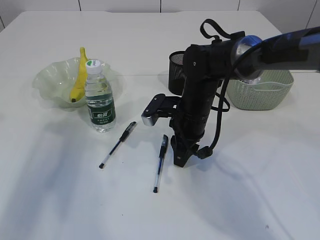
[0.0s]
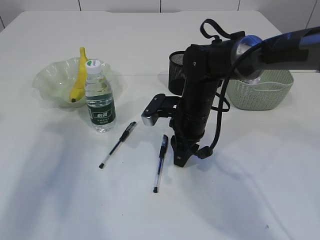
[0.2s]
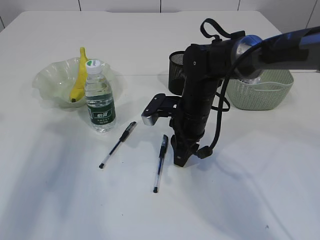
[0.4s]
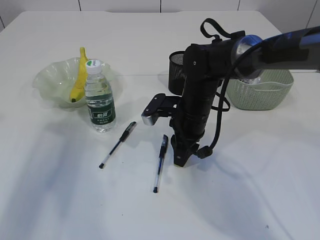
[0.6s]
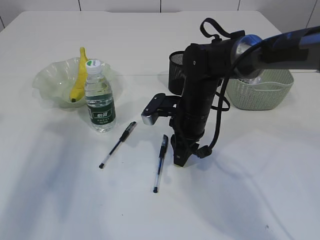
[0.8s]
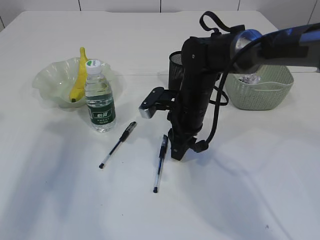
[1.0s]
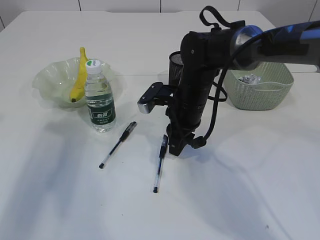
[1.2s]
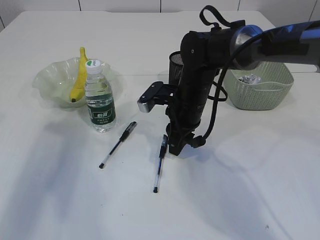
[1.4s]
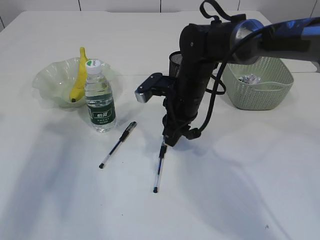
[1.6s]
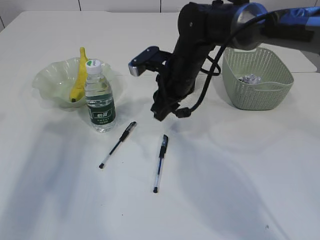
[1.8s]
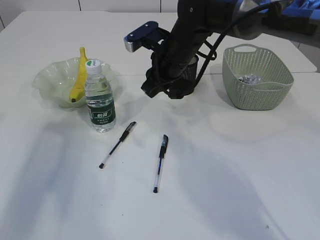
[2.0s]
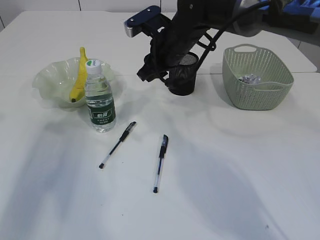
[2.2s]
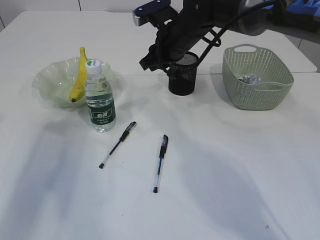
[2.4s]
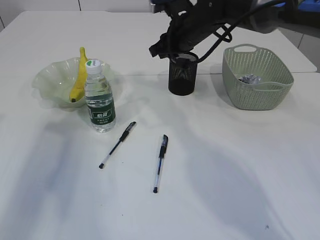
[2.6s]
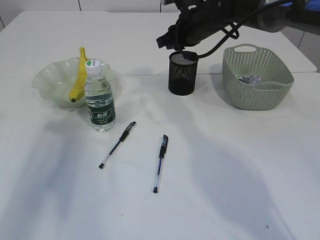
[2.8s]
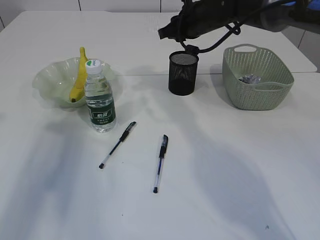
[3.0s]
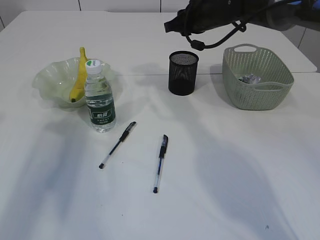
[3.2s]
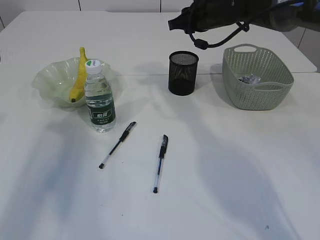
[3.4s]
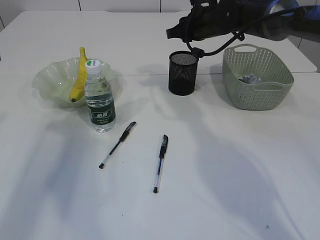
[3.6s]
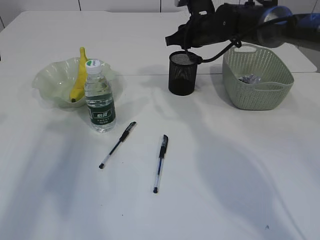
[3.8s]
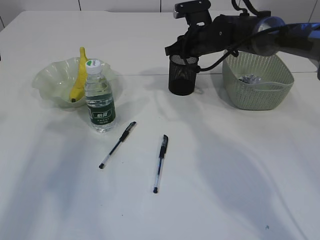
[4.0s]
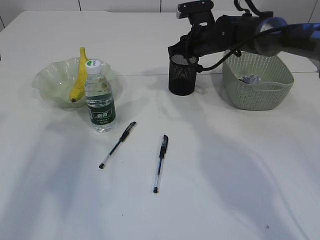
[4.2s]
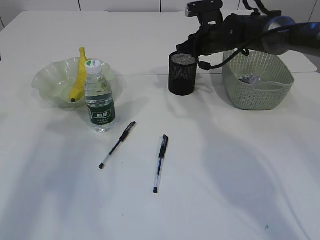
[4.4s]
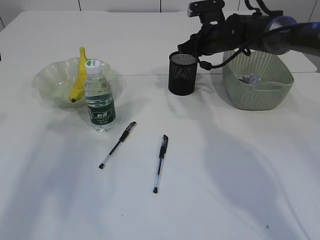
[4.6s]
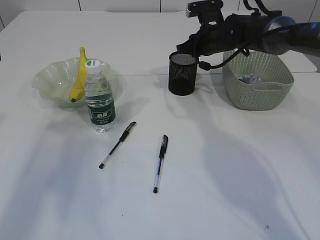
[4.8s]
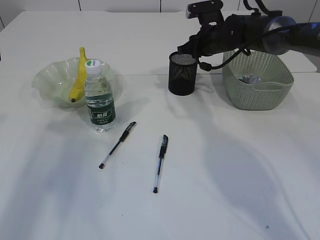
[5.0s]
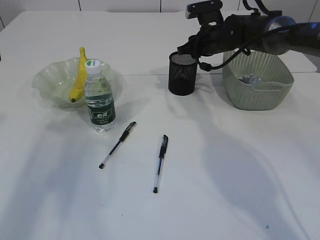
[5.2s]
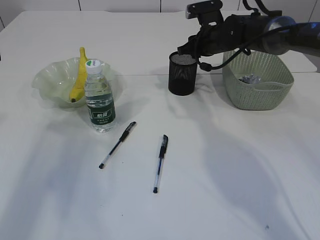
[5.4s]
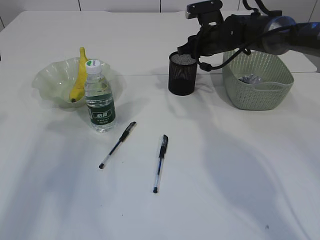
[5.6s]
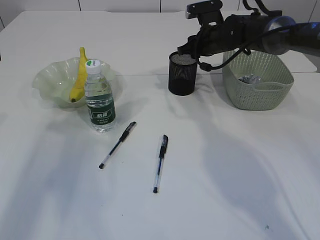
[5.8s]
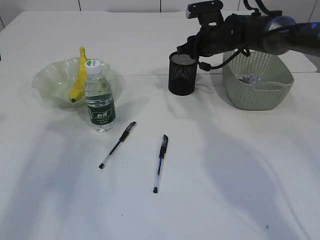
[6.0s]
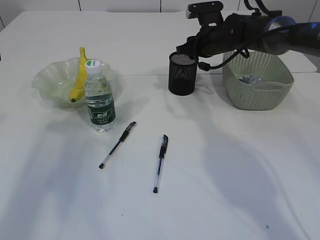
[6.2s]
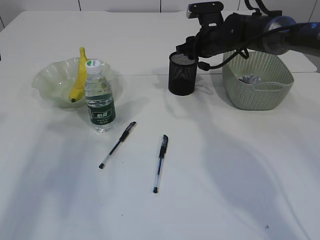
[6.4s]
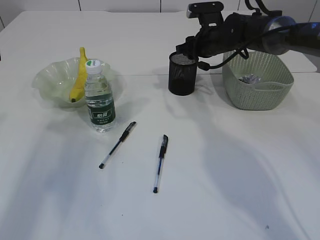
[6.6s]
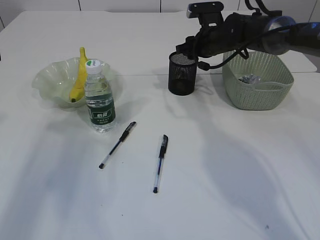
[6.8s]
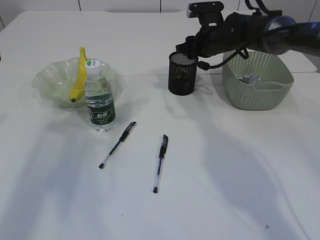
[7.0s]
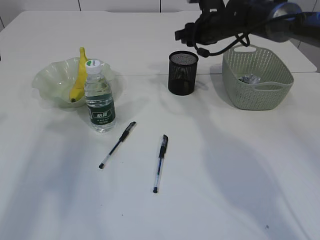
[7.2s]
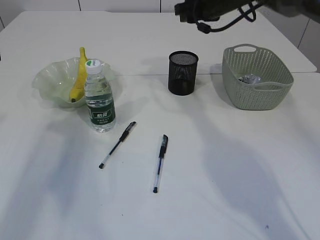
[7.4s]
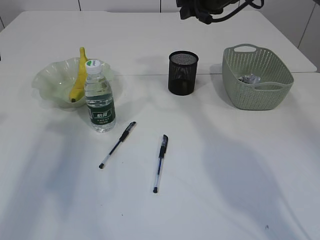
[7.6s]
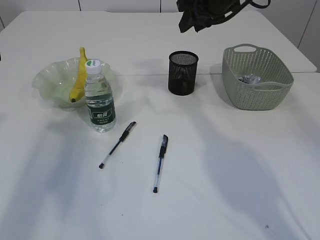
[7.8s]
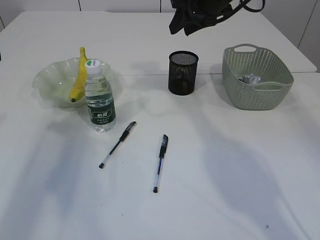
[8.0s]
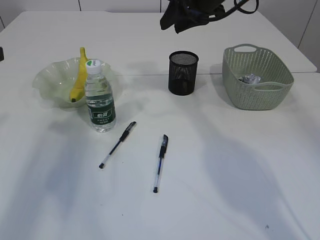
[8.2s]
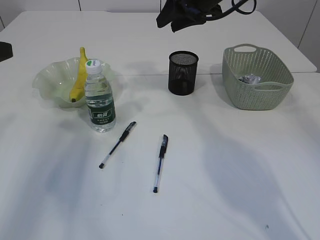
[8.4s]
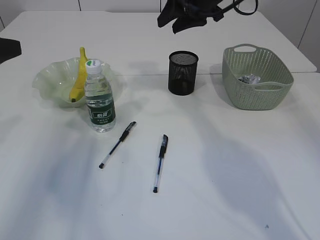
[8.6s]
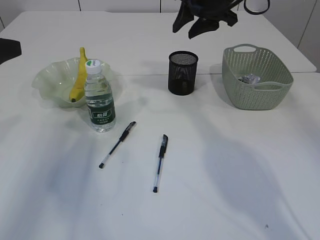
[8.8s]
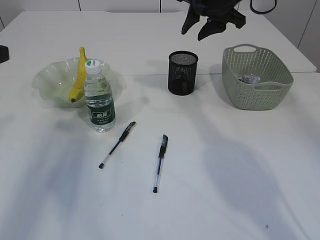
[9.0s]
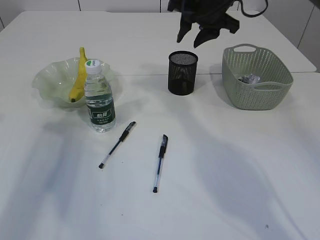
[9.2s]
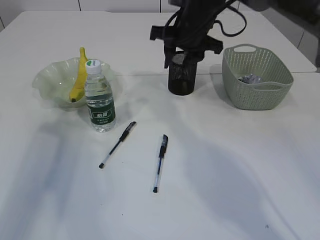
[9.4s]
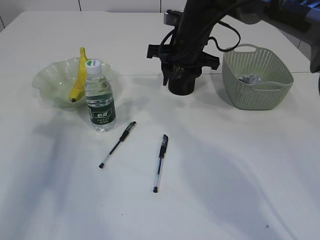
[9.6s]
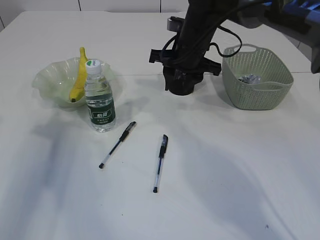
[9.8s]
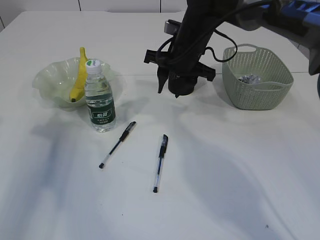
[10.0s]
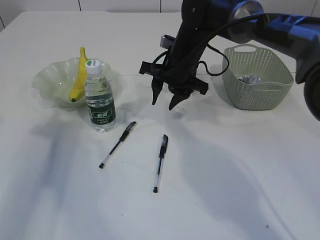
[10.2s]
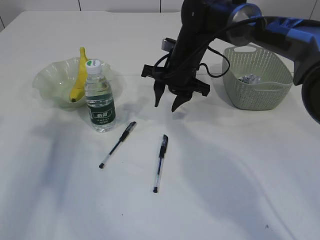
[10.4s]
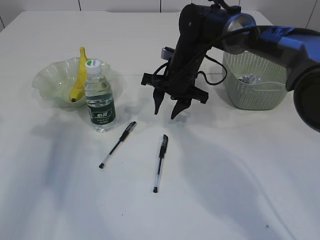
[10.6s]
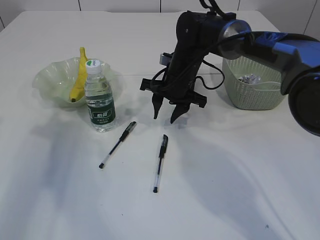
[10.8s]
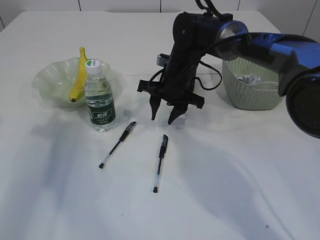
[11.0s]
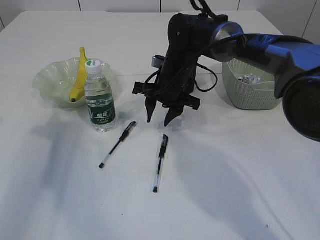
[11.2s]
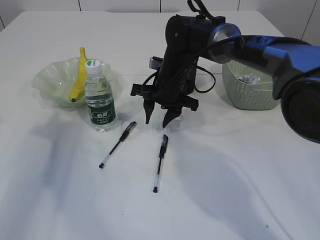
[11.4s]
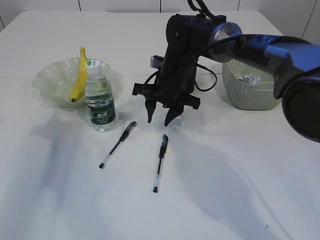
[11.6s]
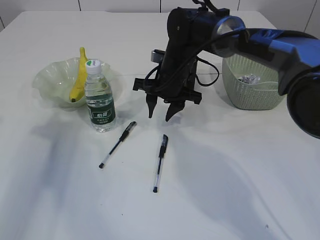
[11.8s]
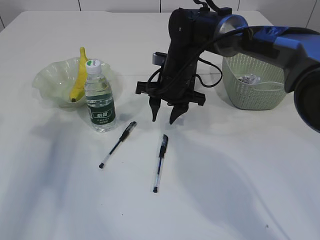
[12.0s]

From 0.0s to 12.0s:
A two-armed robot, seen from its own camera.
Step, from 2.0s to 7.0s: Place the eraser into the pen holder.
From 0.0s to 1.6s: The grippers move only a little.
From 1.6s to 3.0s: The right gripper travels forward and upward by roughly 15 cm.
From 3.0s to 4.4s: The right gripper shifts about 5 cm downward.
From 4.4s to 6.0s: Neither gripper changes place.
From 6.0s to 7.6s: The right gripper shifts some 10 cm upward.
From 9.0s to 10.4s: The right gripper is displaced downward and to the left by roughly 15 cm.
From 10.4s to 12.0s: There are only small adjustments of the grippers.

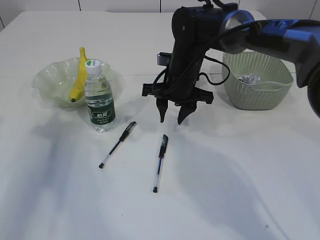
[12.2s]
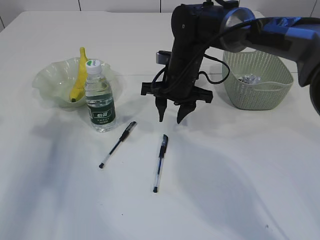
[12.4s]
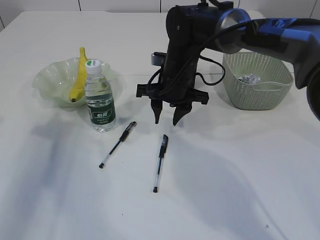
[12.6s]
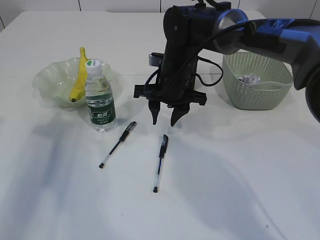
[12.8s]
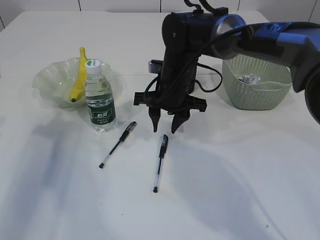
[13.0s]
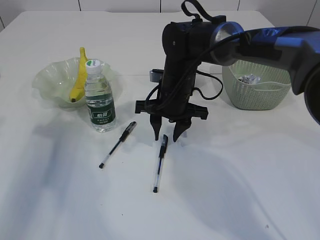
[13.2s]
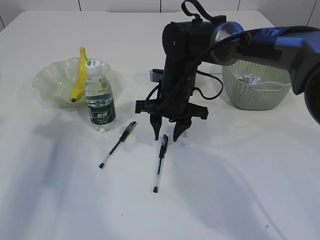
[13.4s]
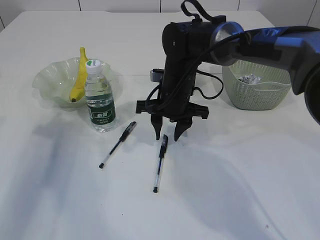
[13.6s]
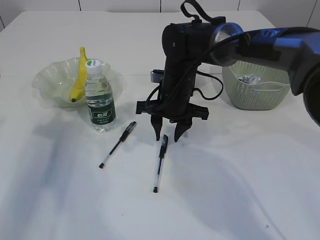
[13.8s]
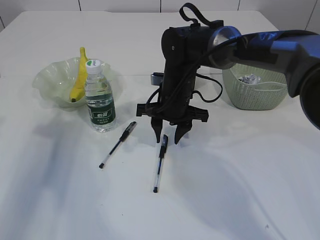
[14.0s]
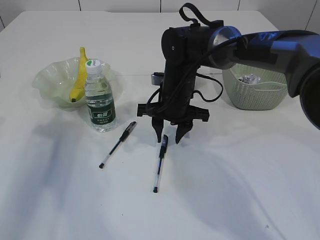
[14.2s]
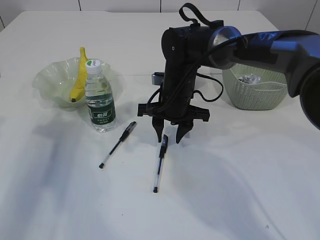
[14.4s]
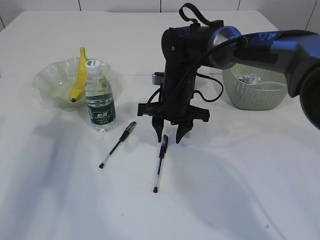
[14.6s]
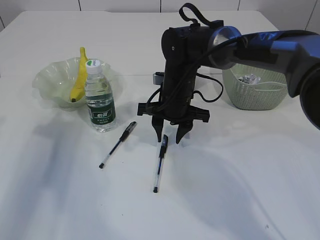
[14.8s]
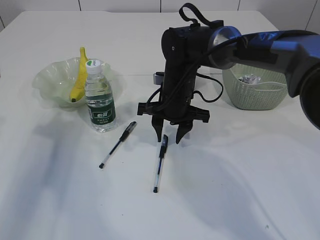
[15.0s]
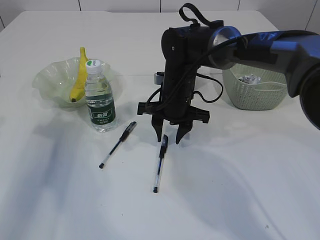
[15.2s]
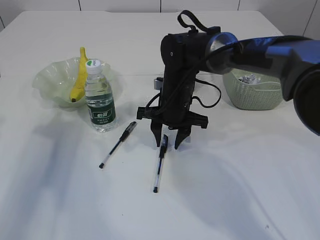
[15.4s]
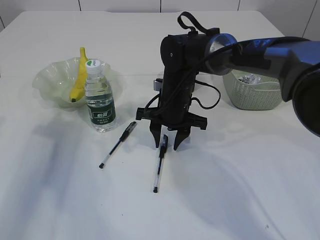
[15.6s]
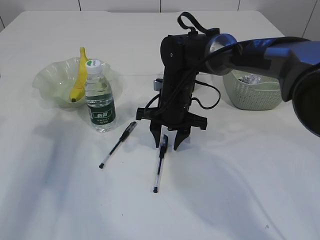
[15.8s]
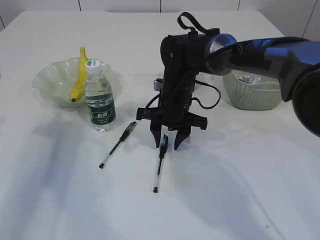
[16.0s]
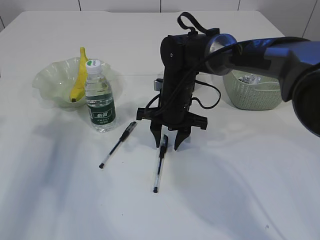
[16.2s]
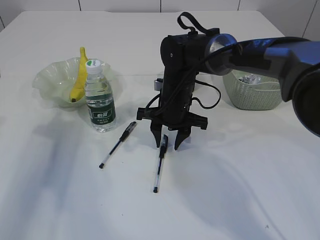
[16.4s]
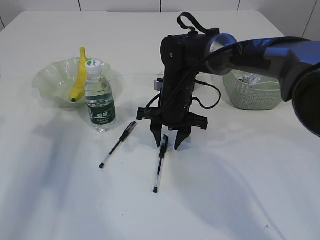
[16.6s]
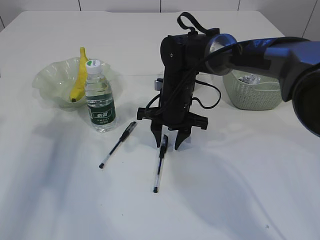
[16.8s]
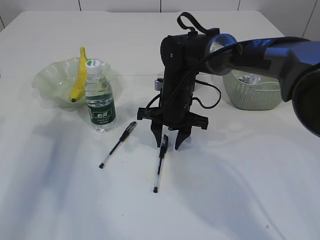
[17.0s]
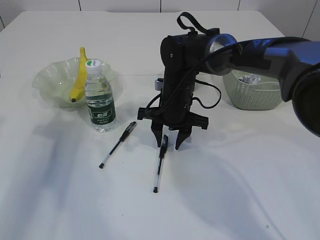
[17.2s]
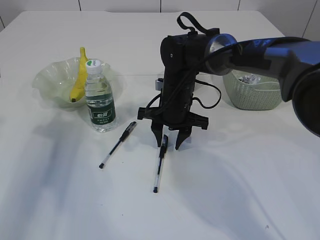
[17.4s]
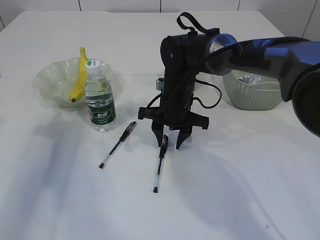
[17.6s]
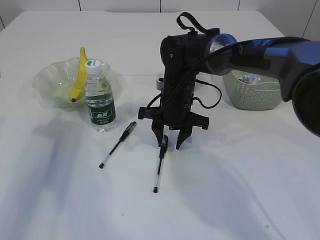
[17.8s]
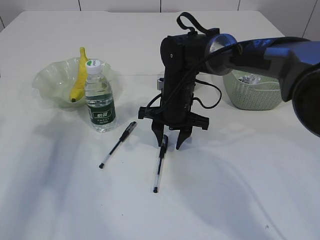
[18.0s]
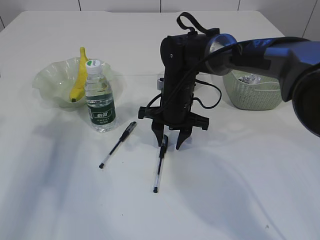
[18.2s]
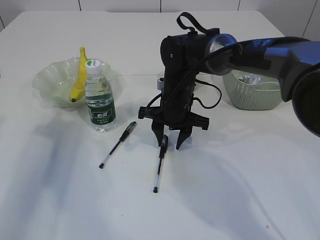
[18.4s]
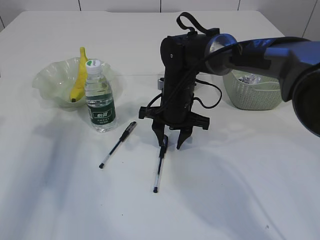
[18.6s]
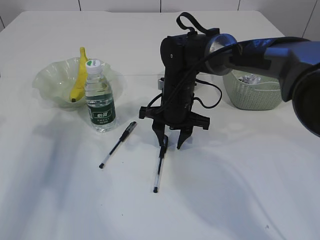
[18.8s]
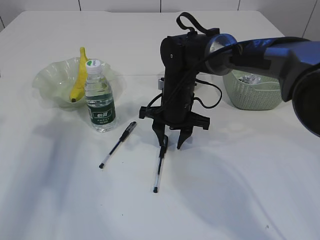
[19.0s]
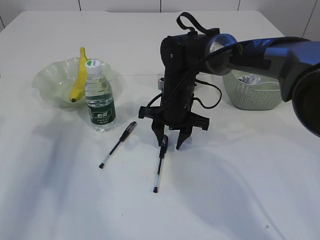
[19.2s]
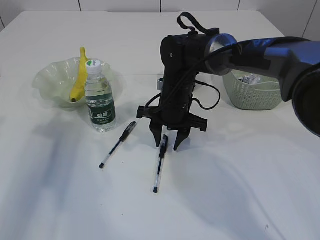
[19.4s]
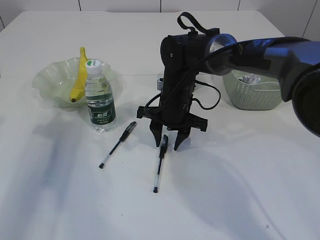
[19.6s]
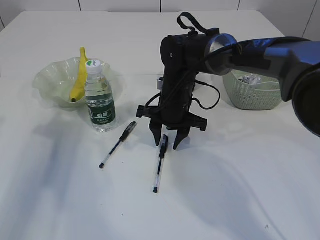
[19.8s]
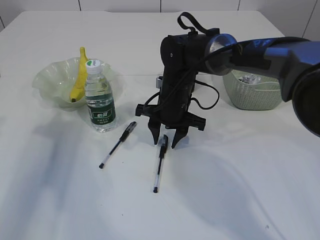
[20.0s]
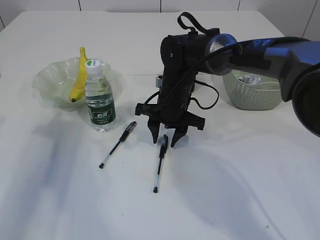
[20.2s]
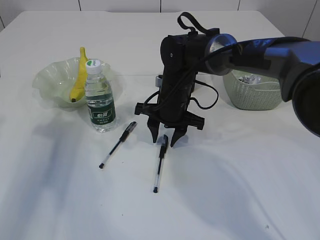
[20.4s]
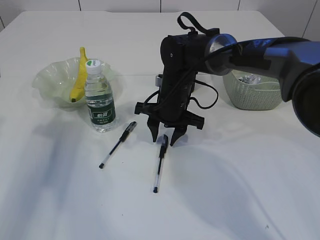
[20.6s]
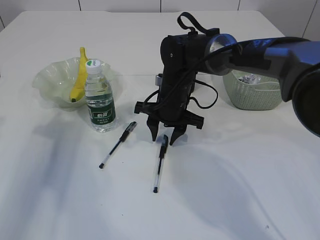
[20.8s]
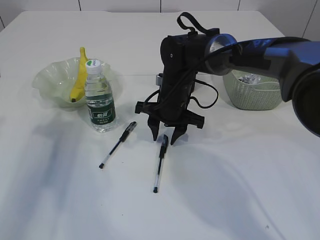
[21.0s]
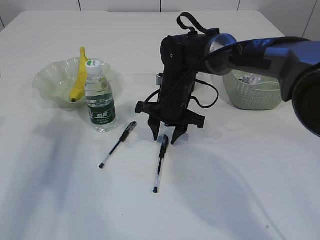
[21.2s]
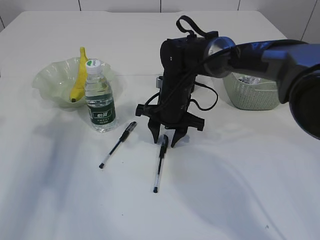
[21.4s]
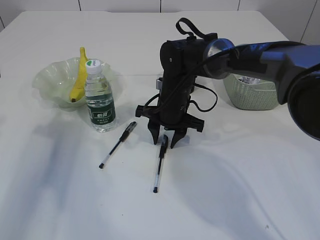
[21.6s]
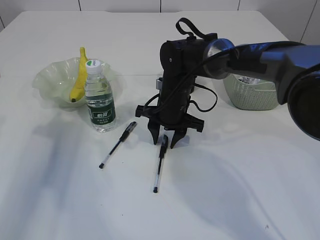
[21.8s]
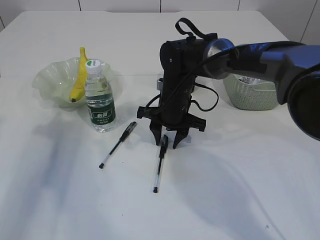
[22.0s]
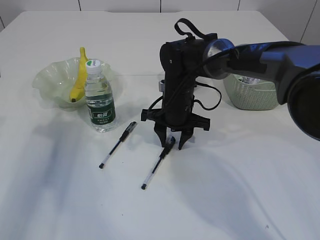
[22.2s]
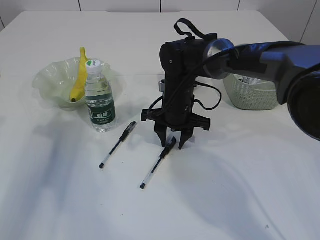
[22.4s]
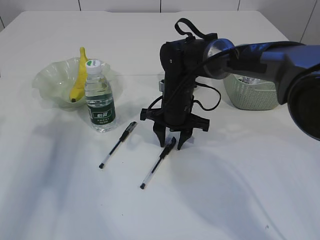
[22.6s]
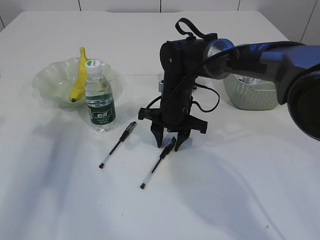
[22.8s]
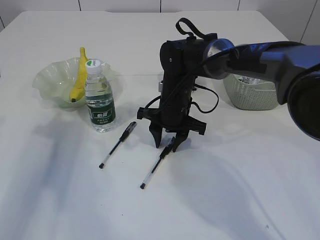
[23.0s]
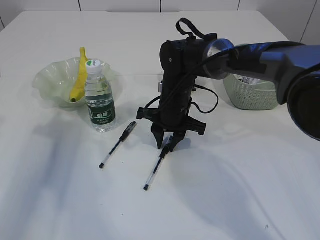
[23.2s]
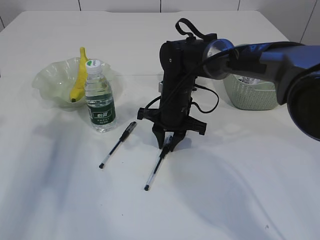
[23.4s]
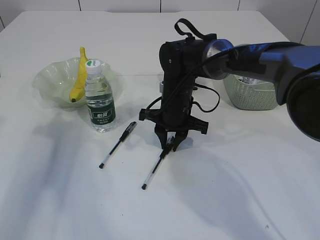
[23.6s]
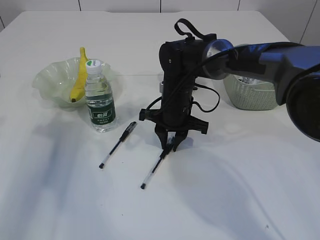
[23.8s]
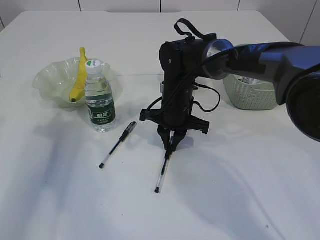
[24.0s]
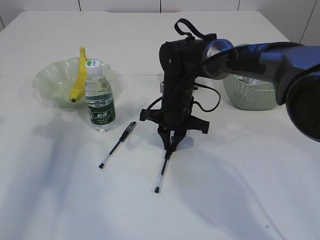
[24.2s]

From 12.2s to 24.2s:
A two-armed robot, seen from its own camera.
From 12.2s to 13.8s: The grippers stay close to where they were, moving slightly.
From 13.8s to 15.2s: Neither gripper changes place.
From 15.2s to 16.6s: Both grippers stay about where they are.
From 16.6s to 19.8s: The two grippers keep their place.
From 19.8s to 21.2s: Neither gripper changes place.
From 21.2s to 22.6s: The grippers stay close to where they were, moving slightly.
From 22.6s to 24.2s: The right gripper closes its fingers.
